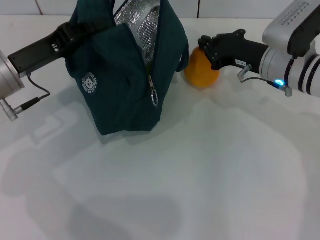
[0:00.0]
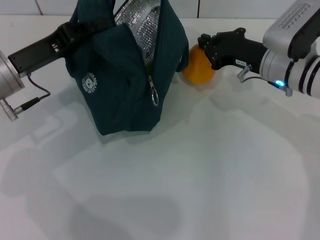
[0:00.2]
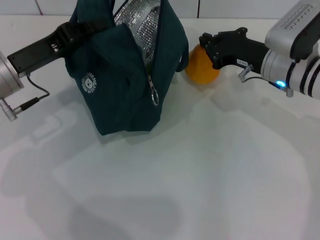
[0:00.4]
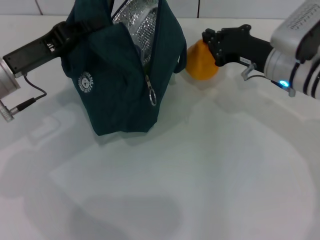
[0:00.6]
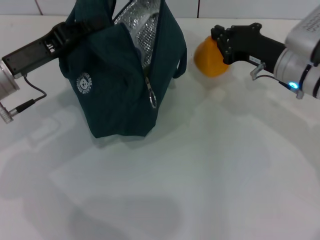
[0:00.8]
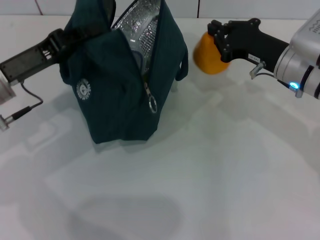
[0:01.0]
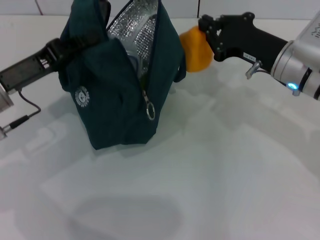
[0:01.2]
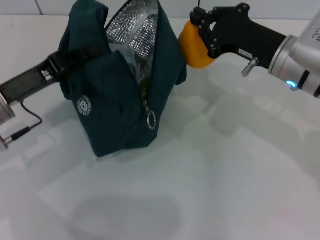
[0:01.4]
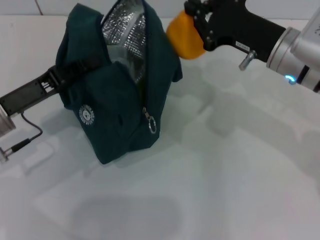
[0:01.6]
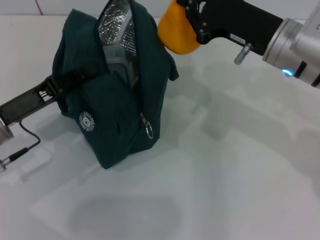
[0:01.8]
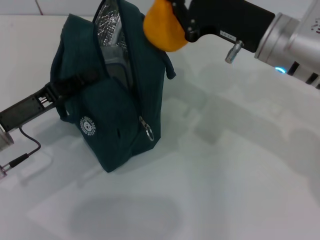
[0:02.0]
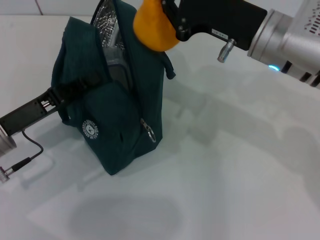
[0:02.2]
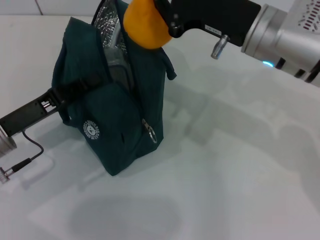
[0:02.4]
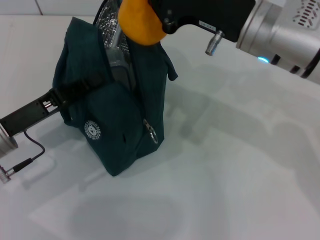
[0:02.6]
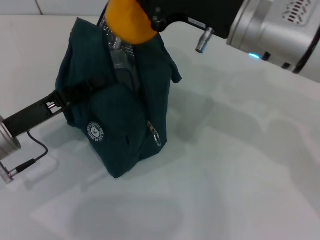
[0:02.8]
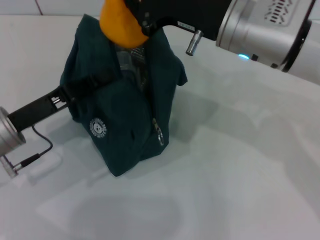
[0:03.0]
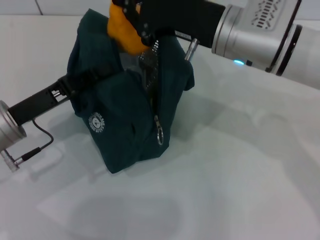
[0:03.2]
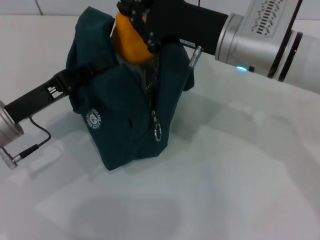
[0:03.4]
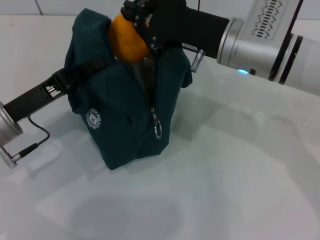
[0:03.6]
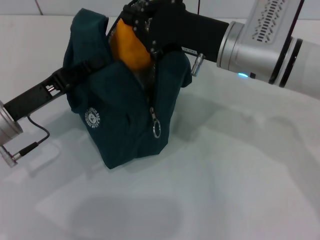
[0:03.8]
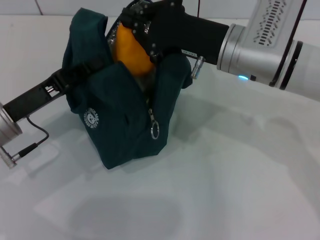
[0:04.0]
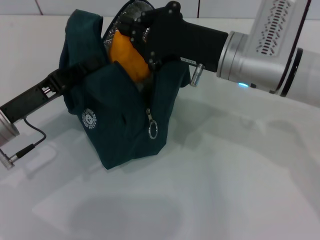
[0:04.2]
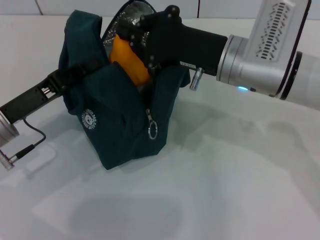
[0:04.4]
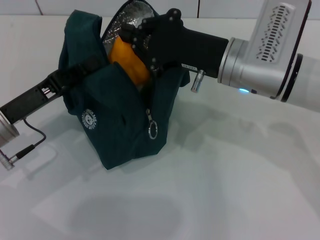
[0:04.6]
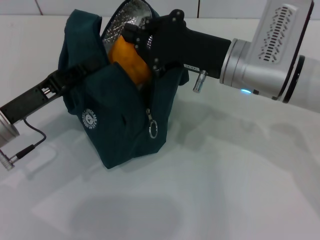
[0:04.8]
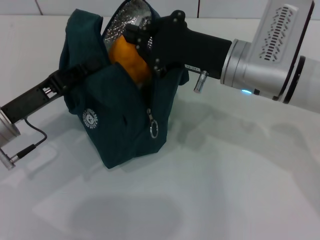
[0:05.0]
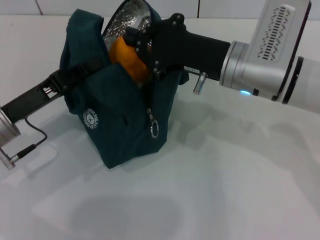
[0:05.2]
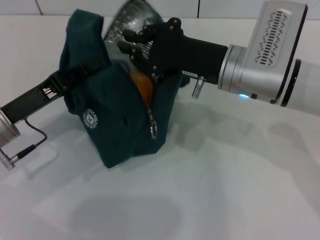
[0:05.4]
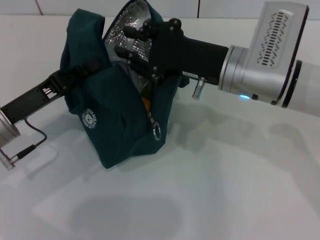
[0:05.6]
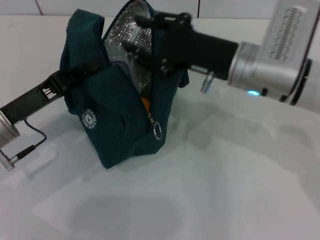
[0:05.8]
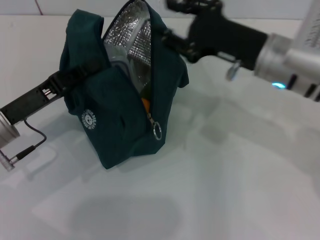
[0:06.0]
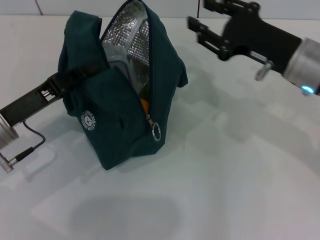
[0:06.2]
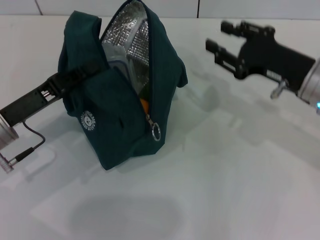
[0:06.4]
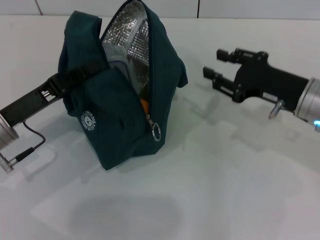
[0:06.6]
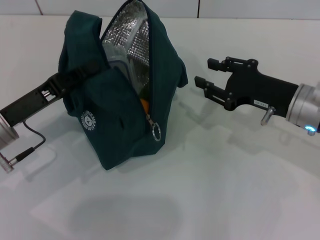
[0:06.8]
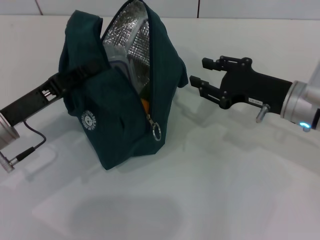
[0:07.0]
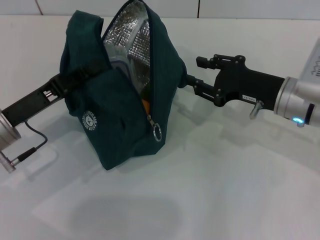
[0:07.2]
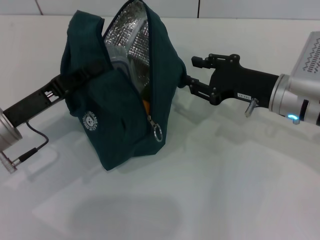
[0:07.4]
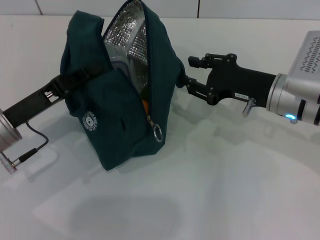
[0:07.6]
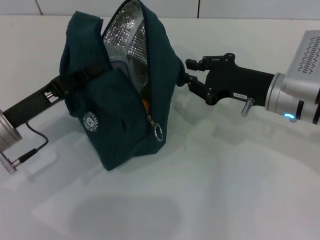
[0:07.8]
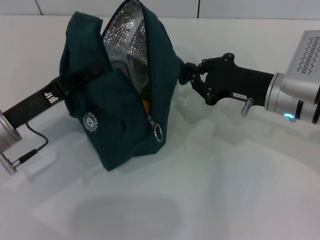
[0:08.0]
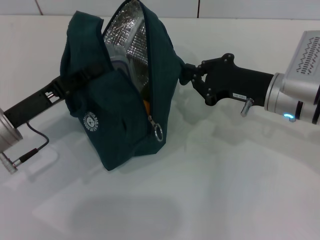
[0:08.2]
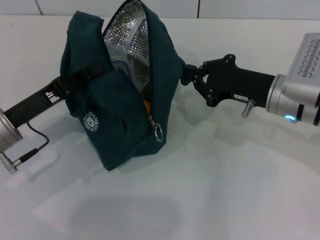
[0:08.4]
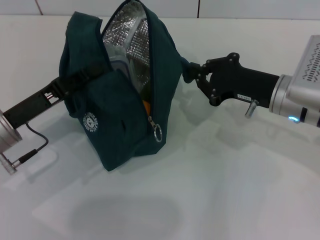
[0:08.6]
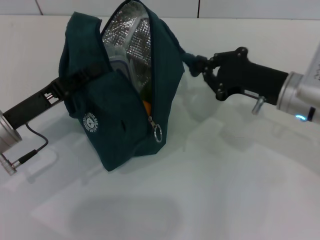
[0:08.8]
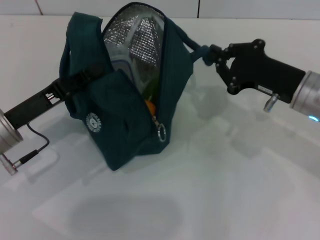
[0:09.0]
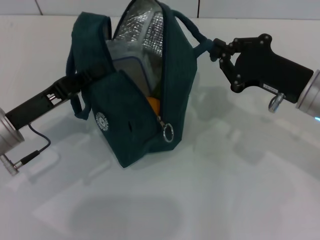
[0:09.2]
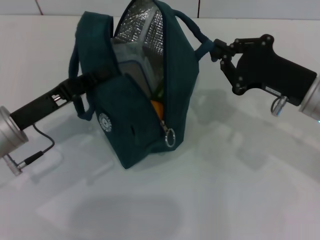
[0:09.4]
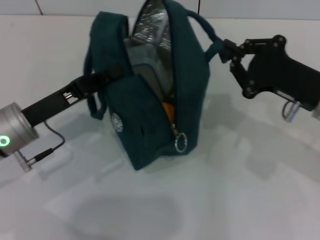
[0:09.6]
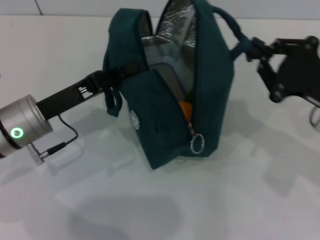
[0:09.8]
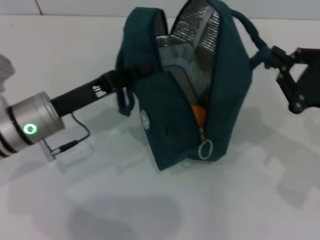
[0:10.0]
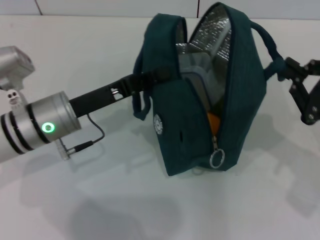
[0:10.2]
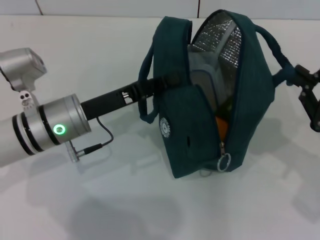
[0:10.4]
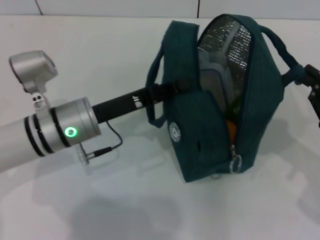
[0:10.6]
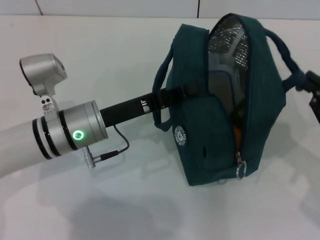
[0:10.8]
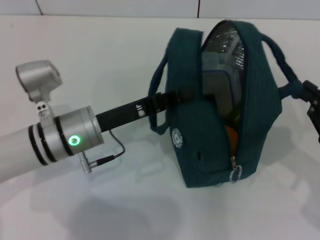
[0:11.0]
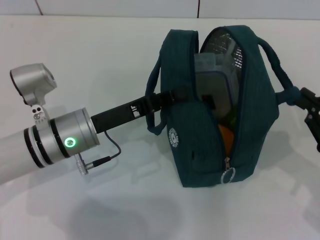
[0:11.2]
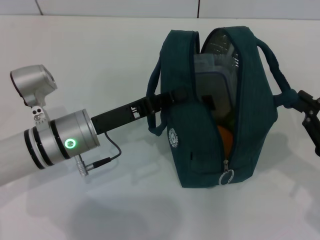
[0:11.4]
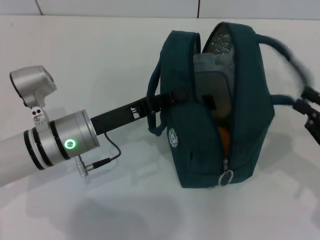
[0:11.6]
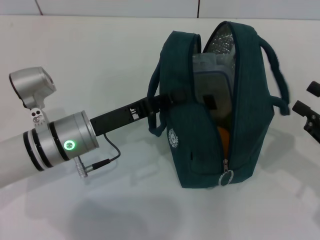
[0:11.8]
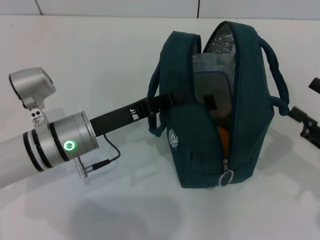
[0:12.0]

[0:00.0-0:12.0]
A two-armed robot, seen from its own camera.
Step, 0:00.2 to 0:05.8: Secure the lunch bag with your left hand.
0:00.0 to 0:01.6: The left gripper ends up approximately 5 cm from where it was. Meanwhile the right gripper goes roughly 10 cm upward and backward.
0:01.6 to 0:03.0: The right gripper travels to the left by approximately 5 cm.
0:04.4 to 0:06.0: The right gripper opens up.
0:06.0 to 0:07.6: The right gripper moves downward, approximately 5 cm.
0:07.6 to 0:09.0: The right gripper closes up.
0:09.0 to 0:10.4: The left gripper is displaced to the right by approximately 10 cm; the right gripper is displaced backward and to the right by roughly 15 cm.
0:10.4 to 0:12.0: The right gripper opens its fingers.

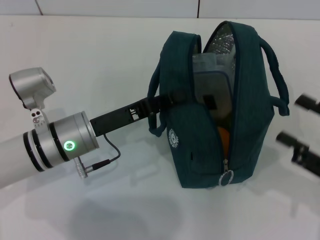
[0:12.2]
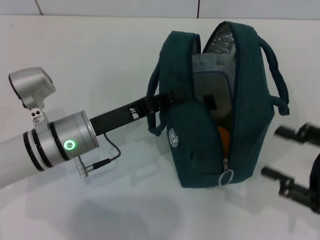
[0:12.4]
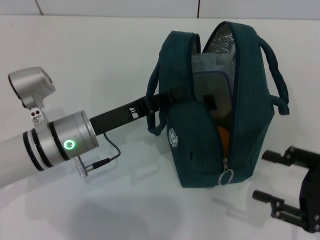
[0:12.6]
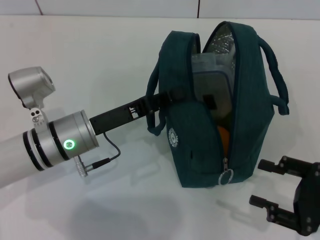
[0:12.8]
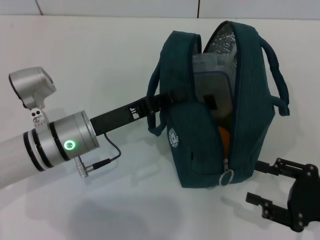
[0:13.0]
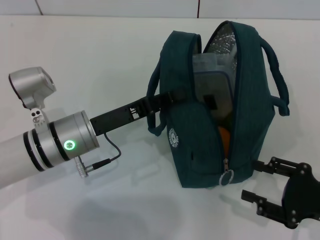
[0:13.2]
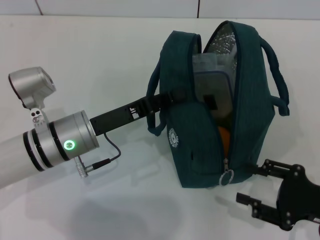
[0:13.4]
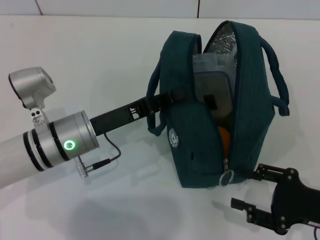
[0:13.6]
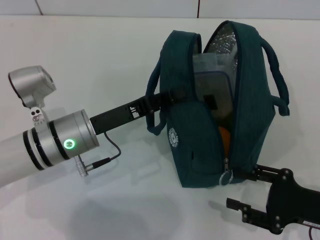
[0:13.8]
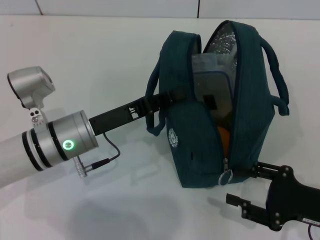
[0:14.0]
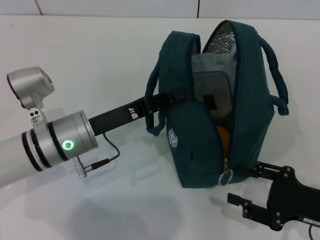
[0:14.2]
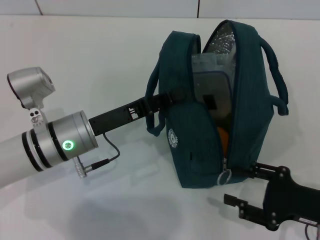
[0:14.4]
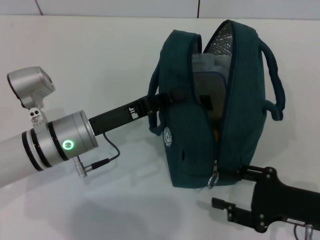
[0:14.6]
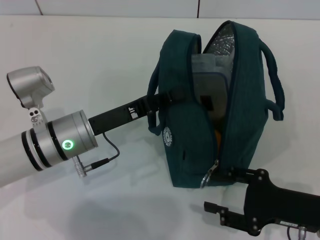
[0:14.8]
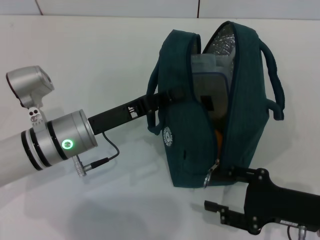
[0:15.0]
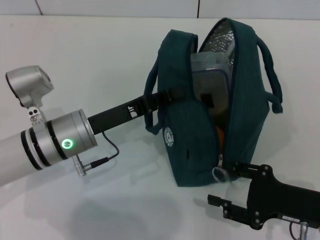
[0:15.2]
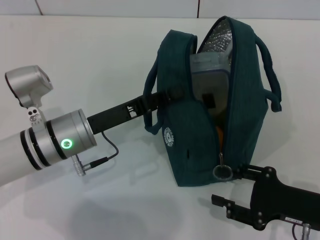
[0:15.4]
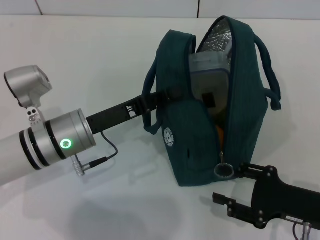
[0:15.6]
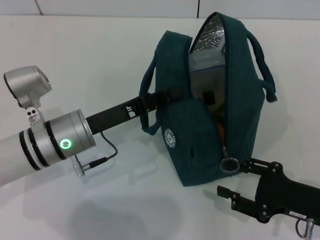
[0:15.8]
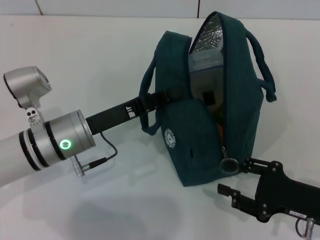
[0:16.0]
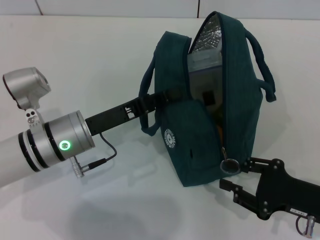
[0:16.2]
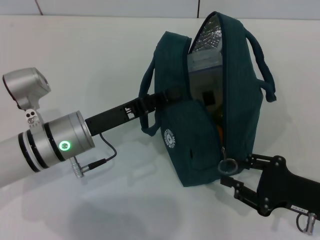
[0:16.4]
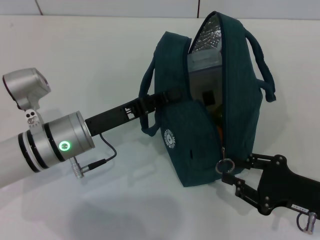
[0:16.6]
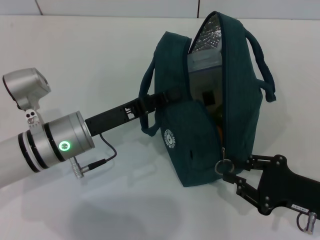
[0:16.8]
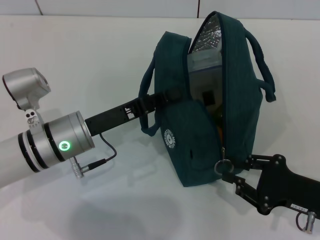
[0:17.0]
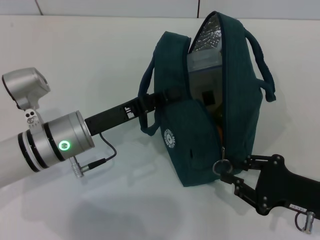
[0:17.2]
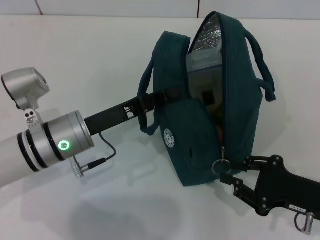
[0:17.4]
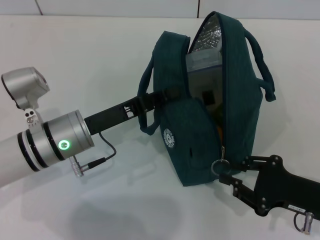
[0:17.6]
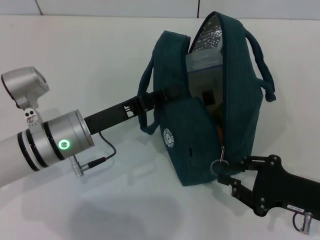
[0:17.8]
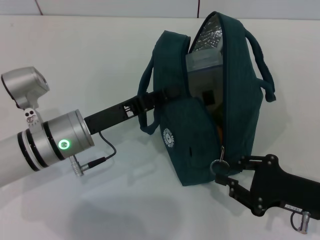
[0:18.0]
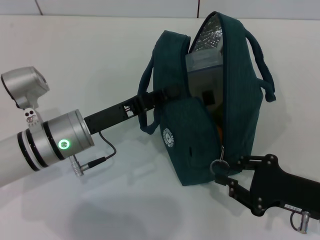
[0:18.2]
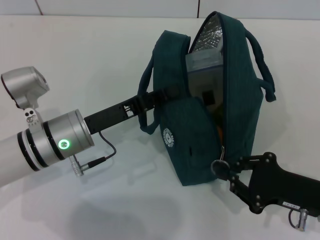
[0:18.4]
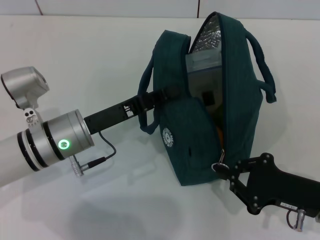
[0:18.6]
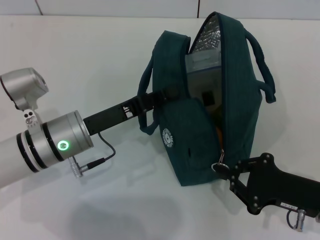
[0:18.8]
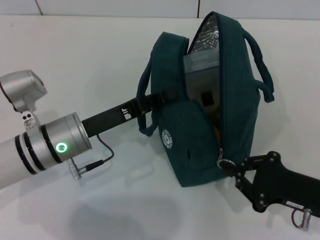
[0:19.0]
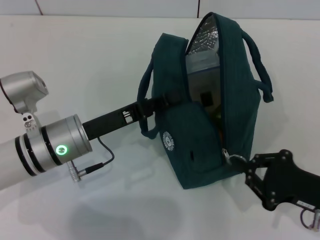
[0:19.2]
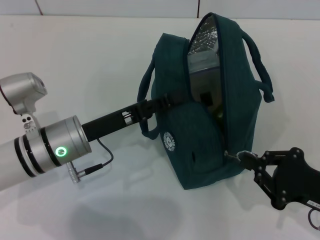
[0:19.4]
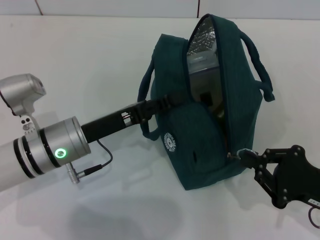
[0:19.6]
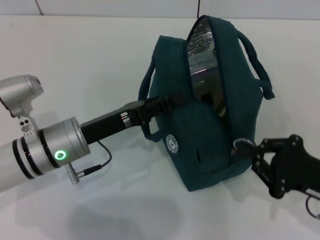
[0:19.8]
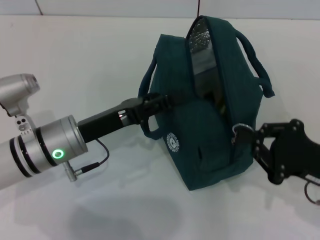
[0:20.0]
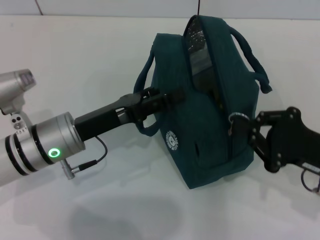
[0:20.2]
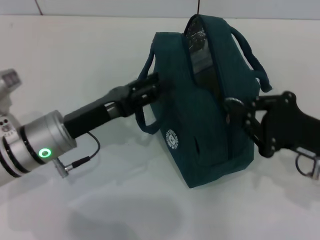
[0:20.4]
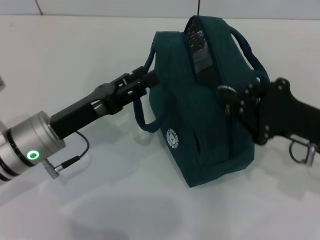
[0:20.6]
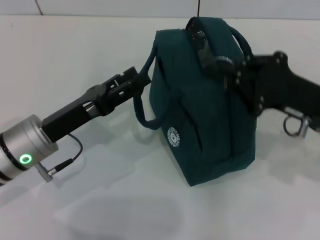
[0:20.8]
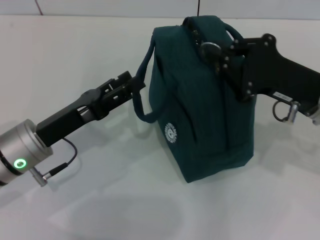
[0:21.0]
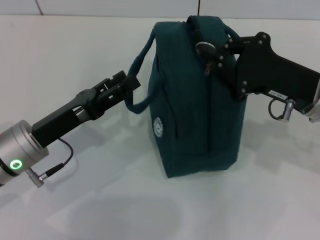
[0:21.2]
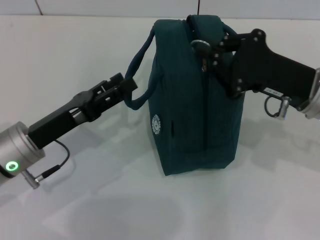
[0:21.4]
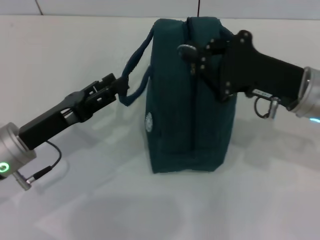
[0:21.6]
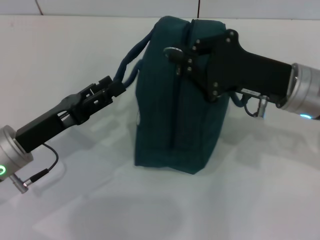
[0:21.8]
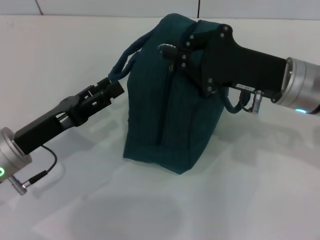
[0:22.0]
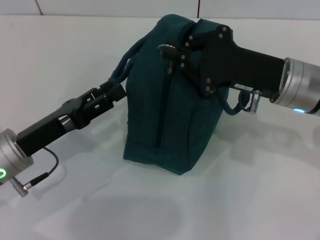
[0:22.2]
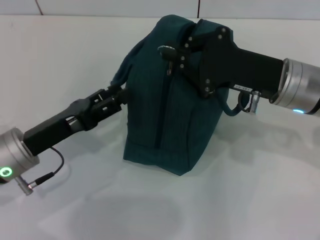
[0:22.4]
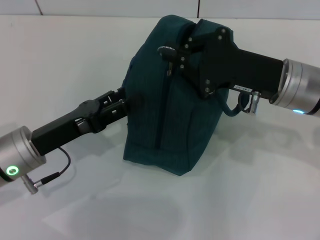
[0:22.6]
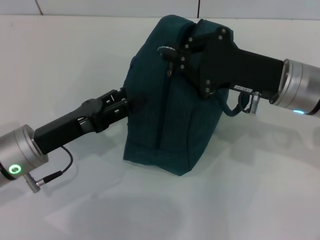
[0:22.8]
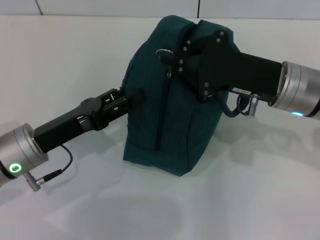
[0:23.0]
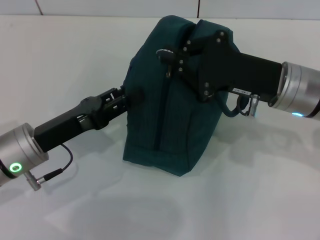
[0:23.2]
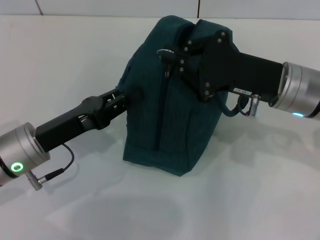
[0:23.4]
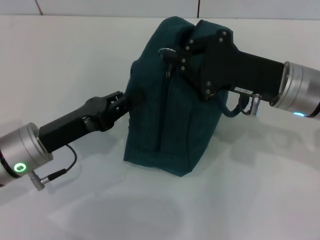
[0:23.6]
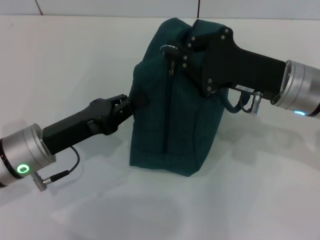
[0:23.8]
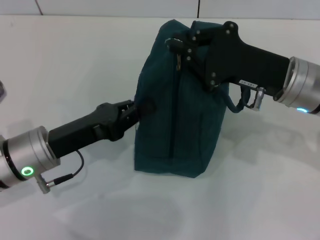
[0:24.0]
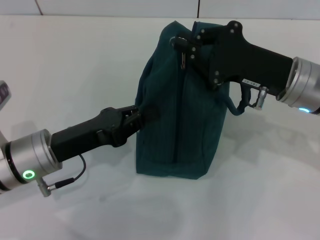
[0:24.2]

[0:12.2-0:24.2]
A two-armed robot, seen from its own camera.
Step, 0:12.4 to 0:20.6: Hold the lunch bag with your left hand.
0:12.2 to 0:13.8: The right gripper is displaced downward by some 10 cm.
0:13.8 to 0:16.6: The grippers stay close to where they were, moving slightly.
0:16.6 to 0:18.2: Neither gripper changes place.
0:18.2 to 0:19.8: The left gripper opens.
0:19.8 to 0:21.2: The right gripper is displaced forward, upward and to the left by roughly 15 cm, while the left gripper changes place by some 5 cm, and opens its fingers.
0:22.6 to 0:24.2: The left gripper closes up.
